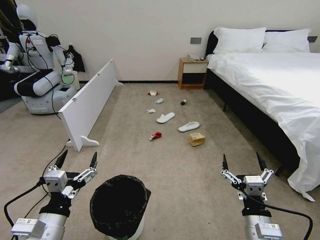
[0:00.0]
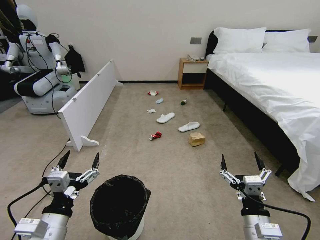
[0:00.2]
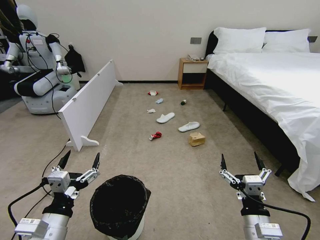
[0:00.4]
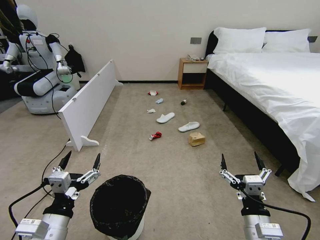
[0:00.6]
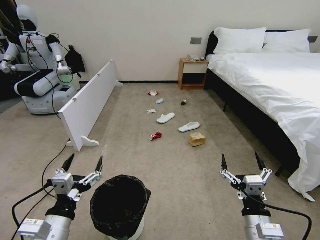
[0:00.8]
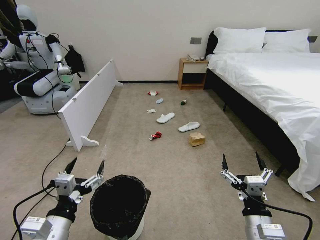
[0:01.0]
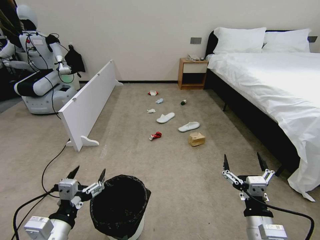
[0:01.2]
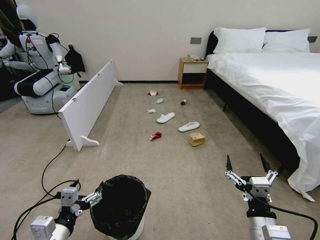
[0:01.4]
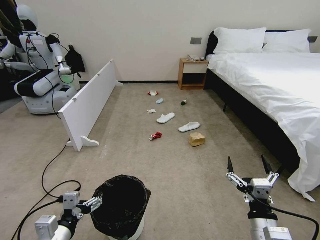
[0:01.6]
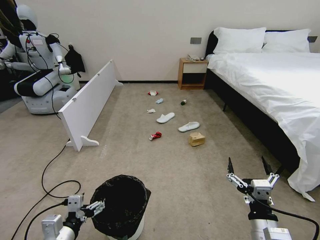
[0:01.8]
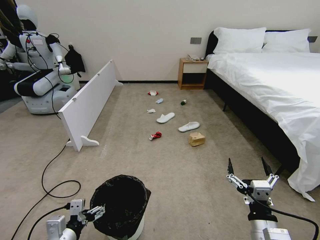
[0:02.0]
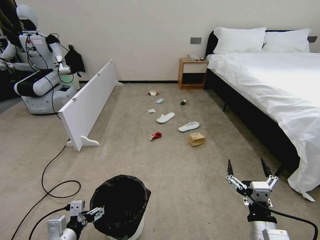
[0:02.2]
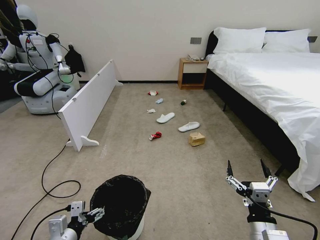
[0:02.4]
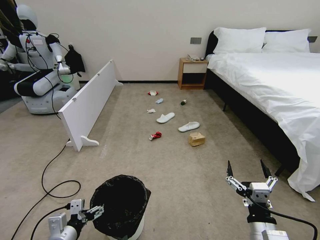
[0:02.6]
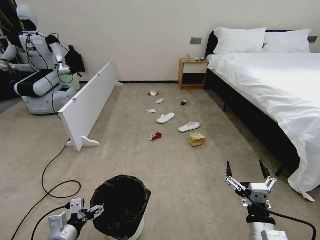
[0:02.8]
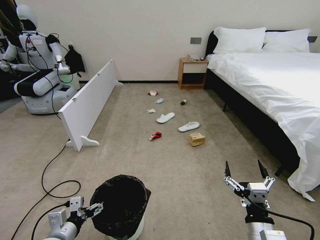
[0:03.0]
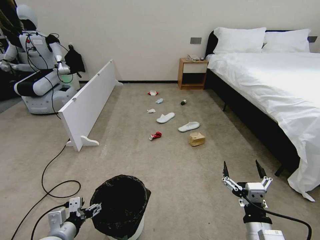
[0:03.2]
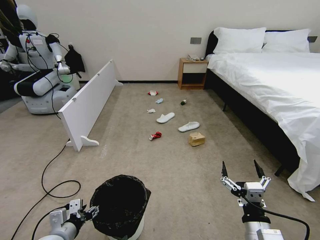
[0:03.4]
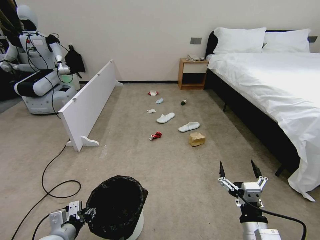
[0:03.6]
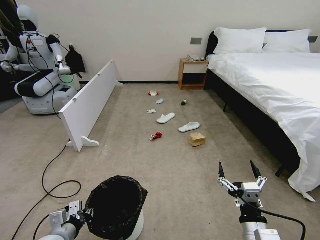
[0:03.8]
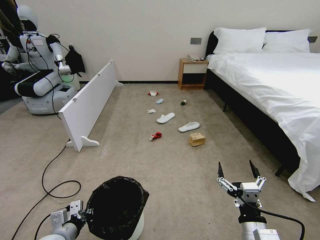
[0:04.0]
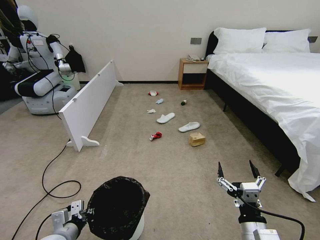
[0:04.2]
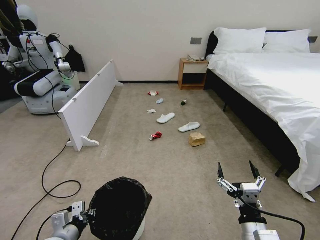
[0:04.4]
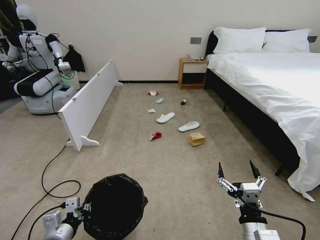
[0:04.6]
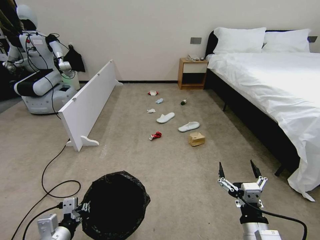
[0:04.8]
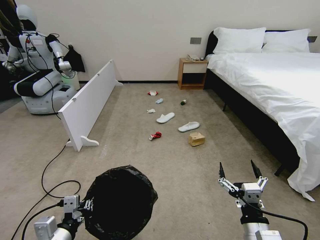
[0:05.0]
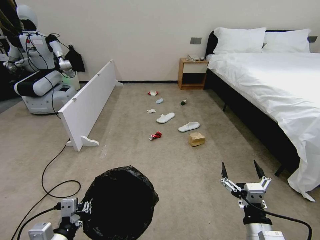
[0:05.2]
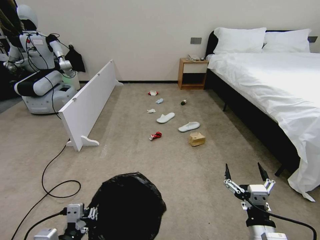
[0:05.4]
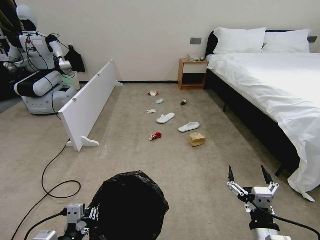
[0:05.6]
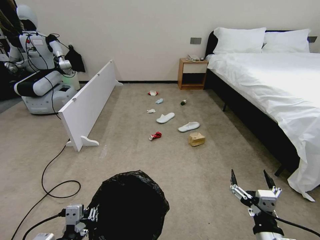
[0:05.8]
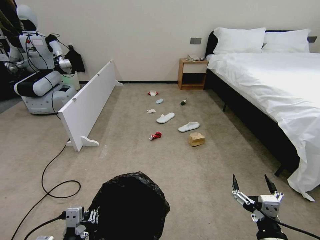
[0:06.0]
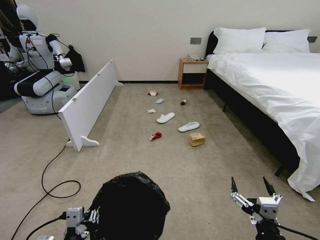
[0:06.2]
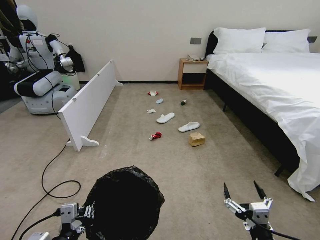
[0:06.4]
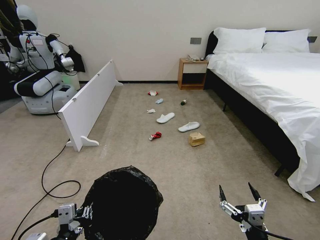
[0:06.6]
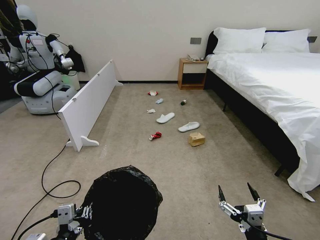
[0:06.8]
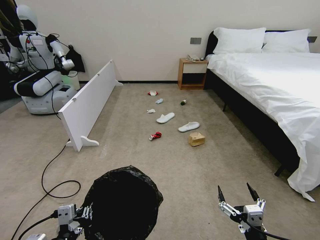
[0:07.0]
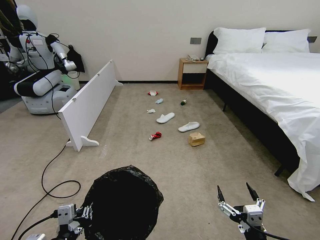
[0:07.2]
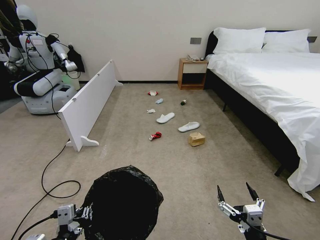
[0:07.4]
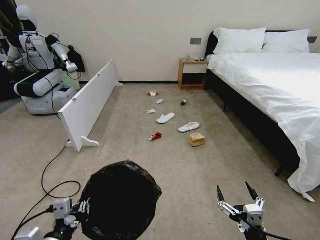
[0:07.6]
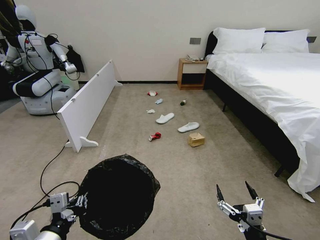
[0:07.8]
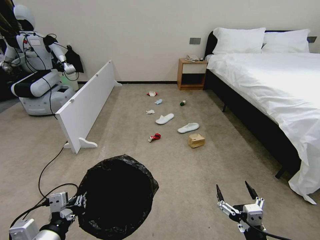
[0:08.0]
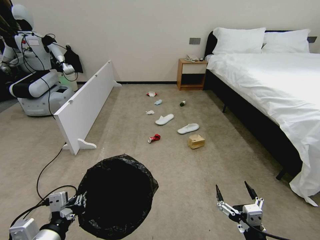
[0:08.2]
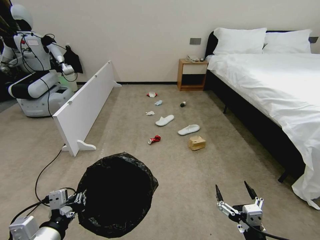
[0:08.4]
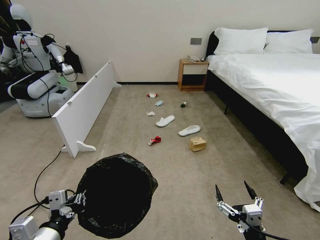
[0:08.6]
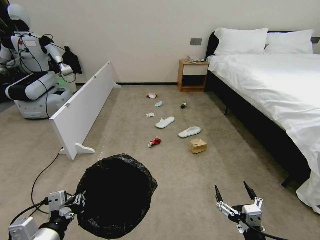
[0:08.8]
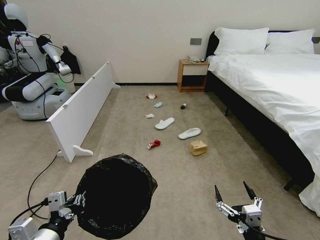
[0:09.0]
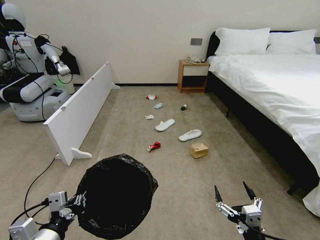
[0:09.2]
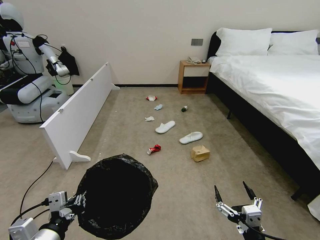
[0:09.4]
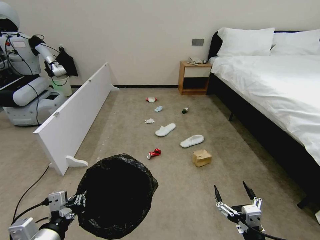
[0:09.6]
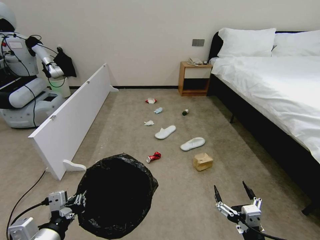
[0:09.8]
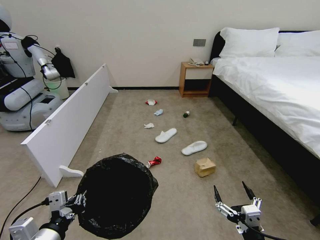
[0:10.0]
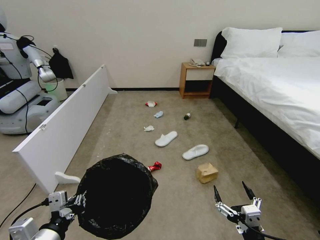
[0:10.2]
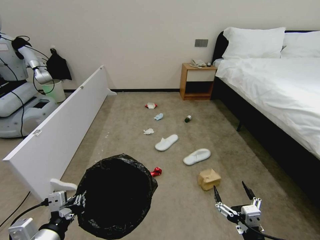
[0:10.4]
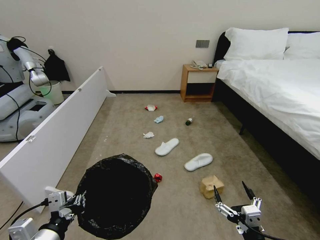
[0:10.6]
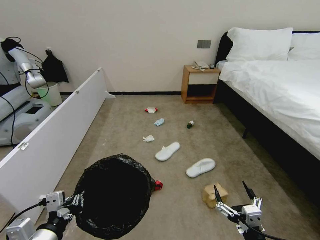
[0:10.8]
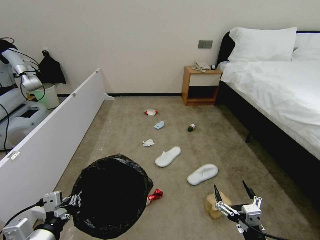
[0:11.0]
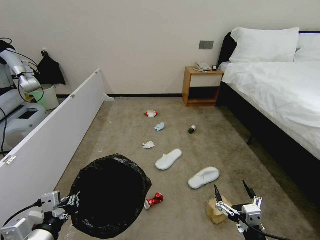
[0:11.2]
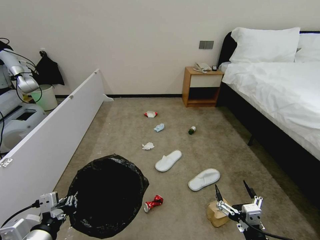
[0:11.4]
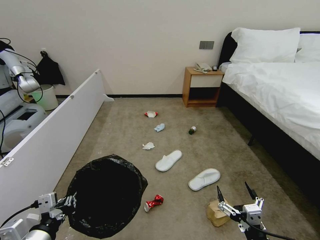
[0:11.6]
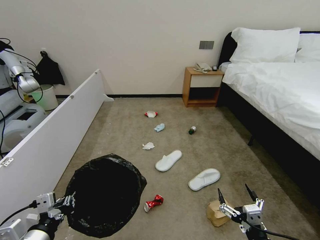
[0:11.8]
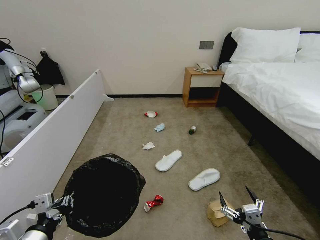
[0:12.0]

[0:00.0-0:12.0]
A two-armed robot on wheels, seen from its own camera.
Task of the whole recording: Pick up the trash bin, then pick up the garbage from the floor and place it into the trash bin.
0:01.6 to 0:03.0: The left gripper is displaced downward by roughly 5 cm.
0:03.0 to 0:04.4: The left gripper closes up.
0:04.4 to 0:06.0: The left gripper shifts about 15 cm backward, upward and to the right.
0:06.0 to 0:07.6: There are only small adjustments of the grippers.

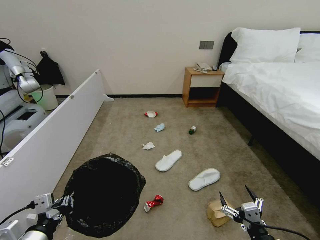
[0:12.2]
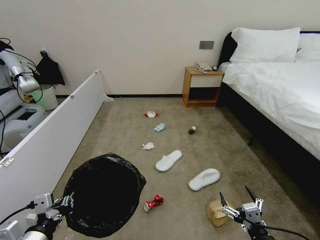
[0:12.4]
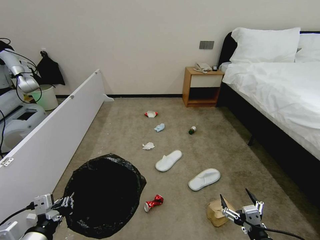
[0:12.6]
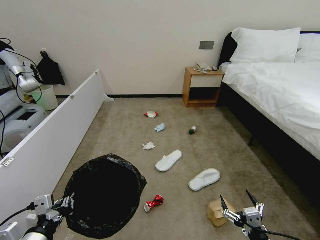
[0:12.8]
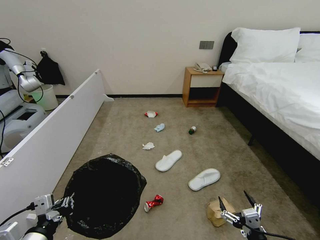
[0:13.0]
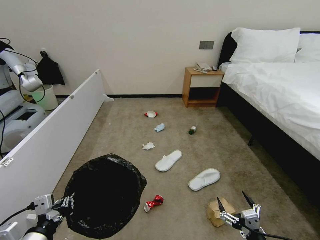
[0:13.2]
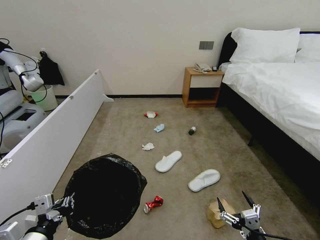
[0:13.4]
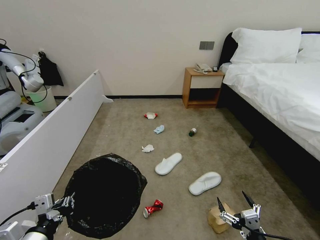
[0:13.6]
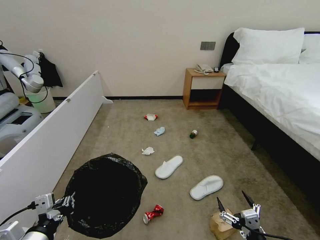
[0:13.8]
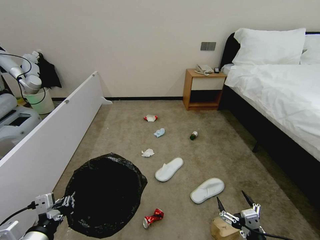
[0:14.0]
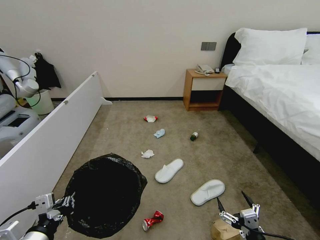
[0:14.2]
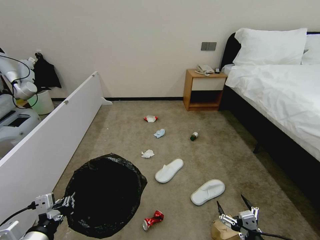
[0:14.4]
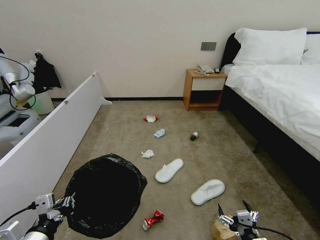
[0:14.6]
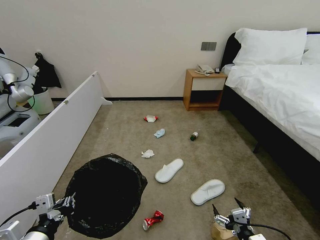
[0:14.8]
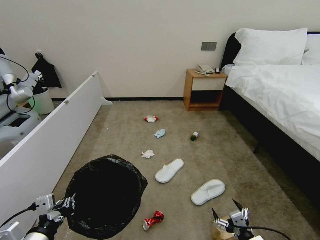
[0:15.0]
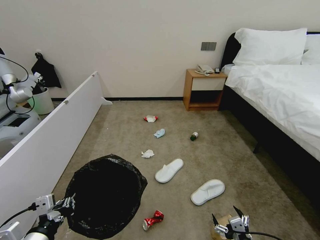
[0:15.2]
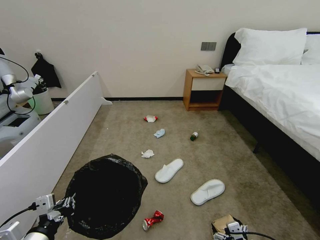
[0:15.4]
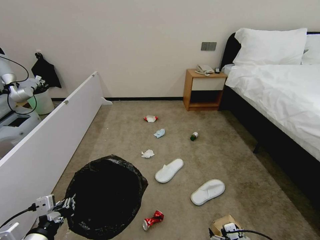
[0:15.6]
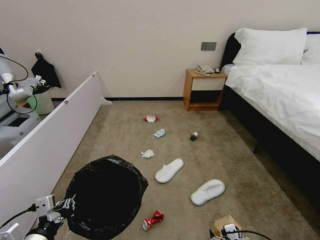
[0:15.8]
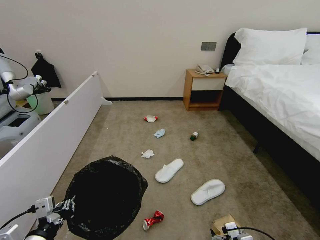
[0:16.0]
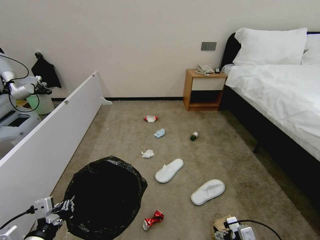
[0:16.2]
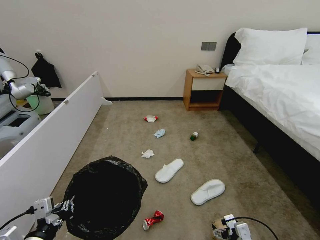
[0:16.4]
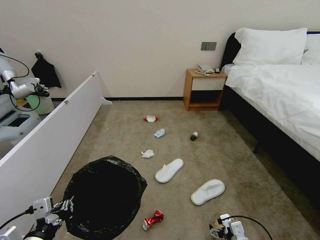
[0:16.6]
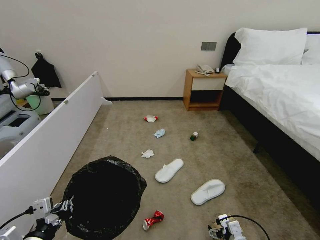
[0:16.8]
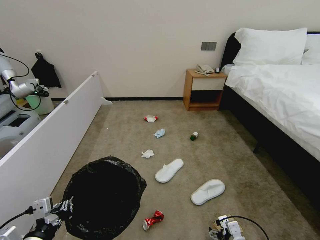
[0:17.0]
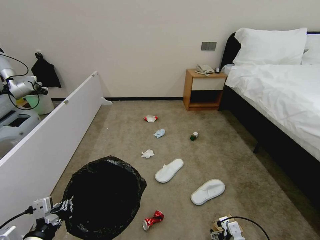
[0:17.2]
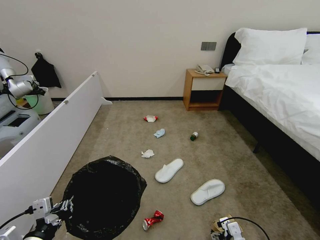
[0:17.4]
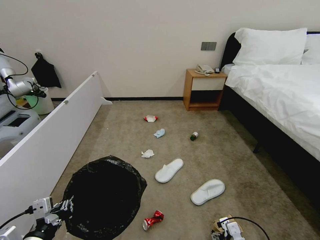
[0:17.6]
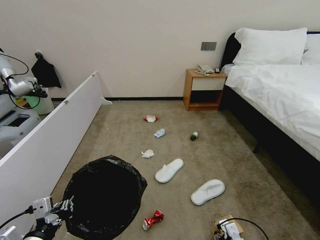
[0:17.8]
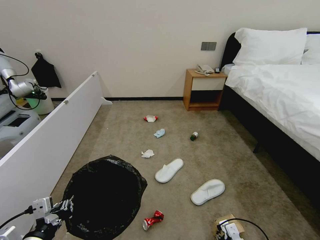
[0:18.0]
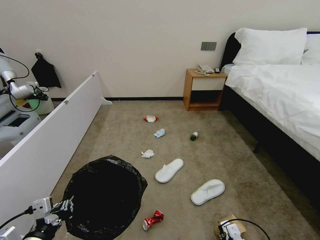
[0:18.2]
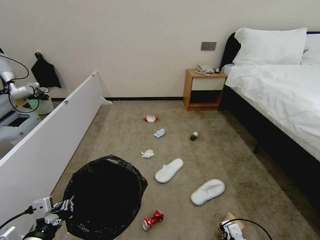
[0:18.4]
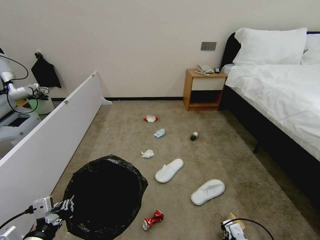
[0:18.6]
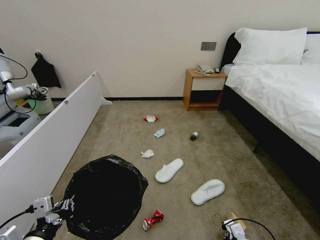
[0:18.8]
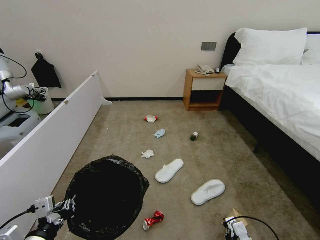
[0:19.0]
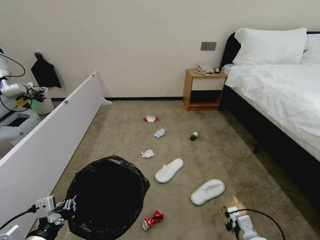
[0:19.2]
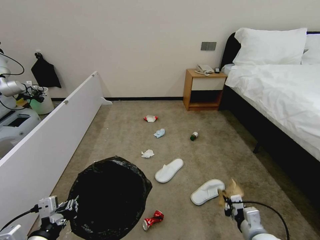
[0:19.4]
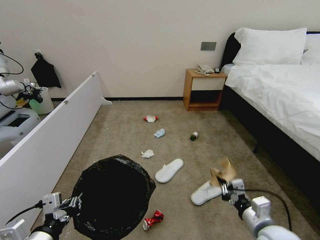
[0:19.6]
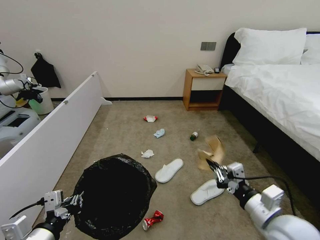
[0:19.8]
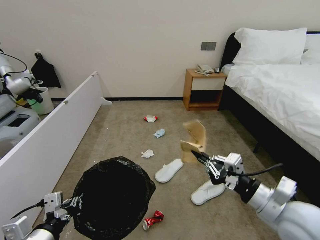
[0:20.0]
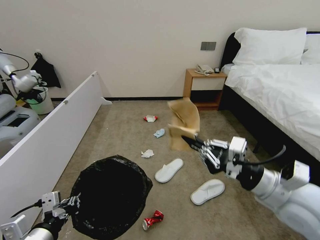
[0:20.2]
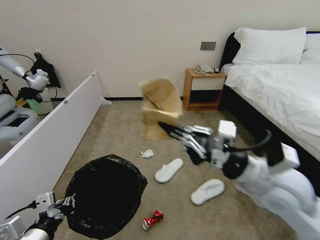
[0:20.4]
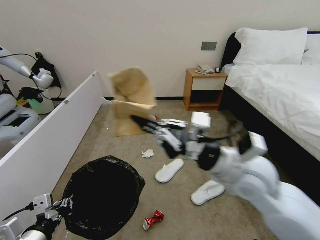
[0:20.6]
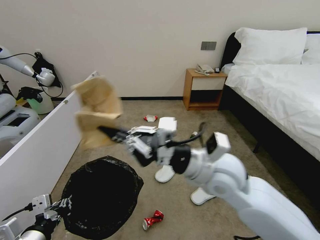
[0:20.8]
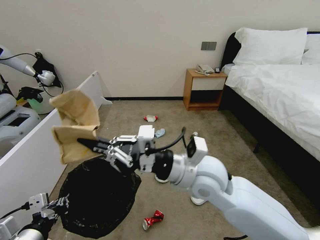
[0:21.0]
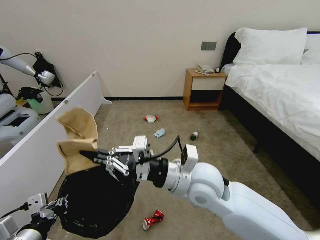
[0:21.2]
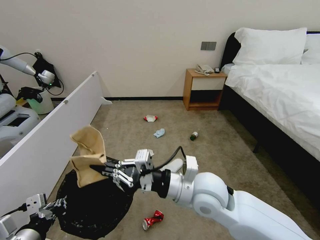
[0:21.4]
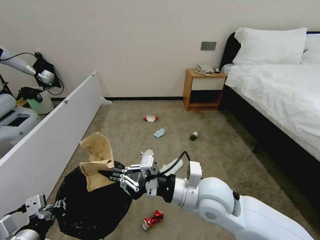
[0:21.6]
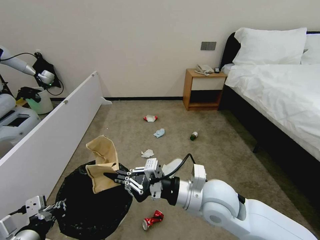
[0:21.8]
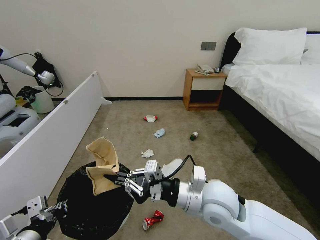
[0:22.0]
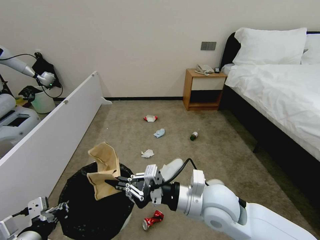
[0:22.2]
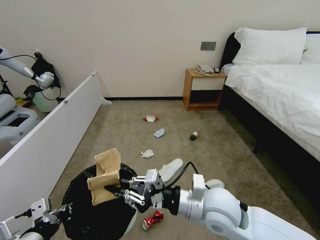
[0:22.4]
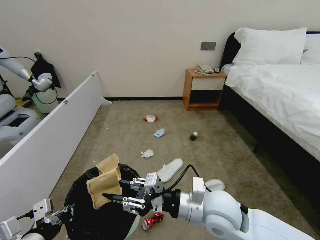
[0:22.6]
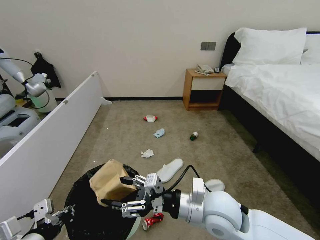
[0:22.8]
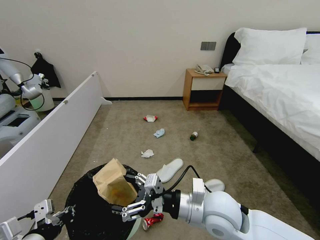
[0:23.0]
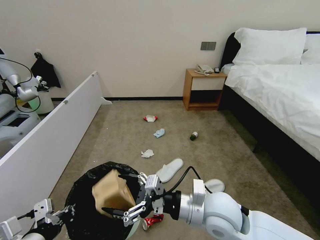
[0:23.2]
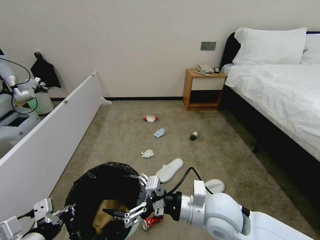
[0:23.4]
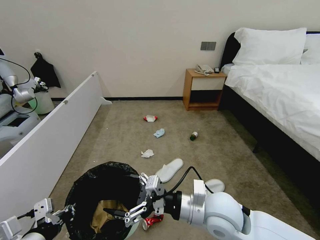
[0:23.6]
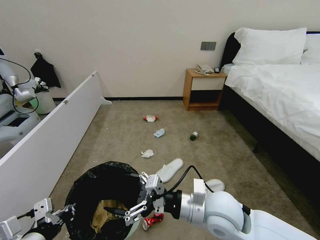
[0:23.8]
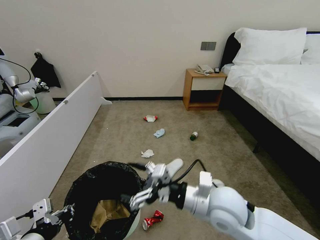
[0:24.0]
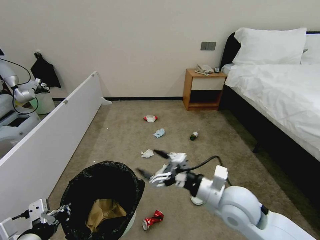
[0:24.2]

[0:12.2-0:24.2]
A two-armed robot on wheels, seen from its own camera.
Task of the whole recording: Pick up the trash bin, then pick up the garbage from the floor and place it into the trash bin.
0:12.2 to 0:13.8: The grippers move only a little.
0:13.8 to 0:15.2: The grippers stay close to where they were, moving slightly.
0:15.2 to 0:16.6: The right gripper heads forward, covering approximately 10 cm.
0:16.6 to 0:18.2: The right gripper closes its fingers.
0:18.2 to 0:19.8: The right gripper is displaced upward by about 25 cm.
0:19.8 to 0:21.2: The right gripper travels to the left and forward by approximately 20 cm.
0:21.2 to 0:22.6: The right gripper shifts roughly 5 cm downward, and opens.
0:22.6 to 0:24.2: The right gripper opens up.
